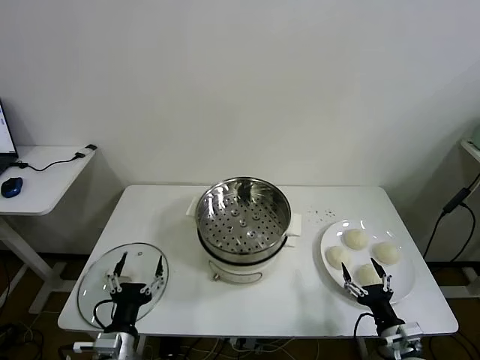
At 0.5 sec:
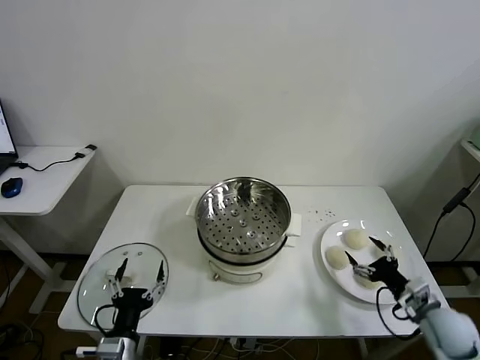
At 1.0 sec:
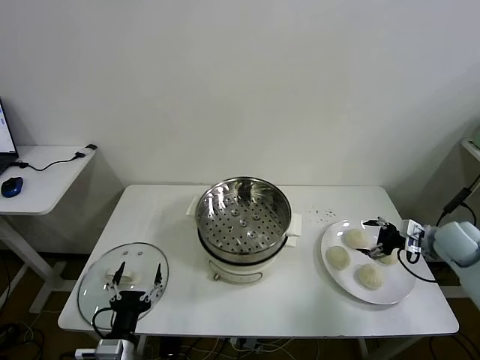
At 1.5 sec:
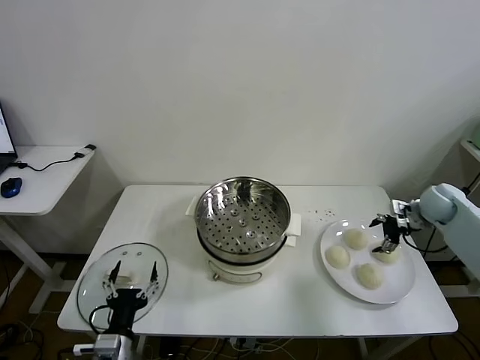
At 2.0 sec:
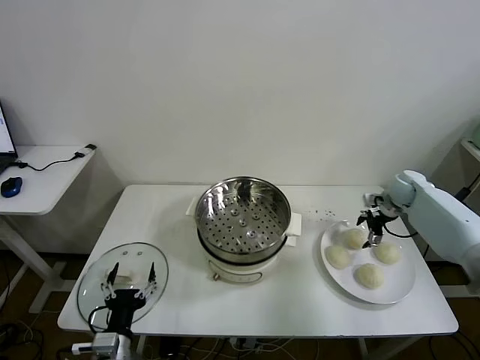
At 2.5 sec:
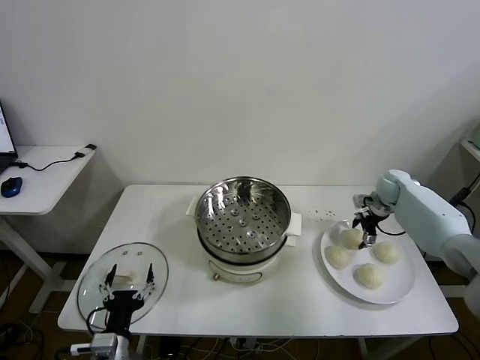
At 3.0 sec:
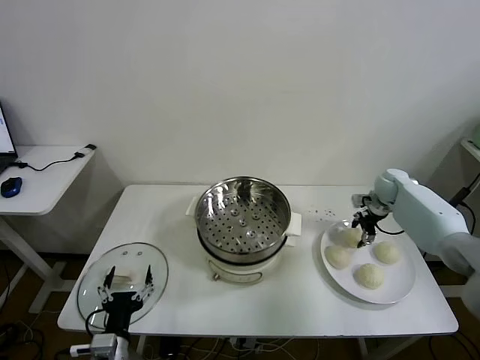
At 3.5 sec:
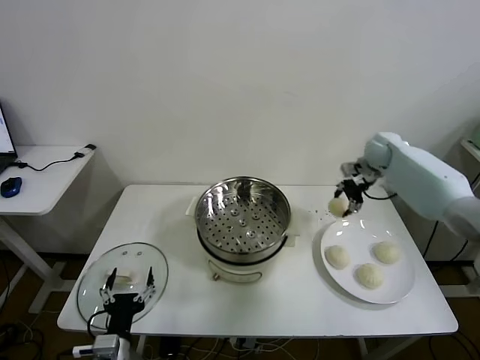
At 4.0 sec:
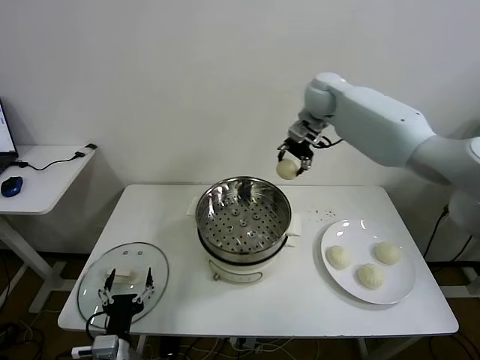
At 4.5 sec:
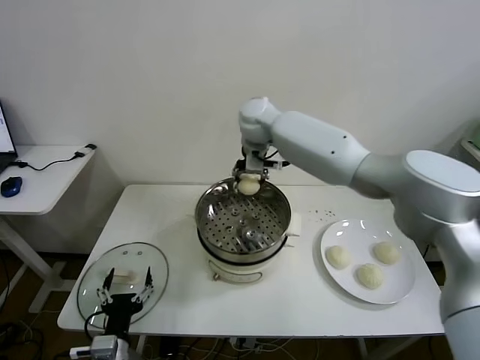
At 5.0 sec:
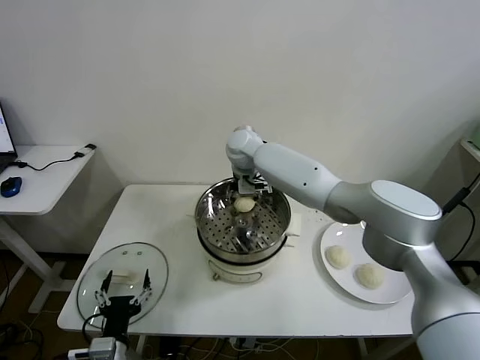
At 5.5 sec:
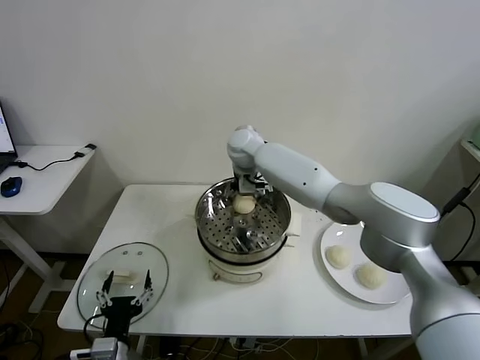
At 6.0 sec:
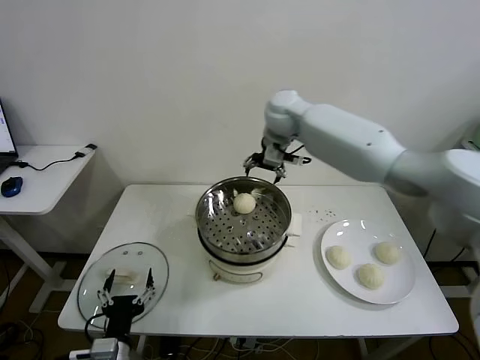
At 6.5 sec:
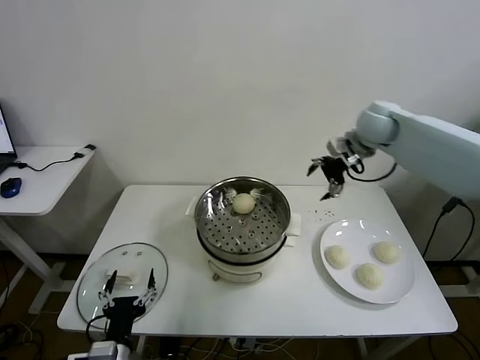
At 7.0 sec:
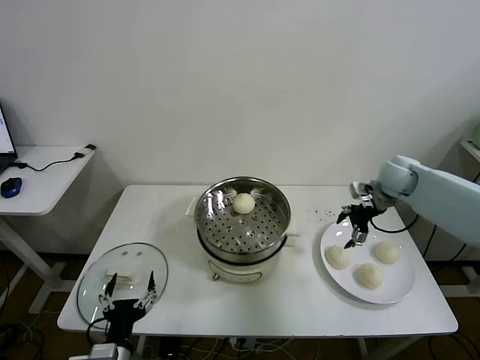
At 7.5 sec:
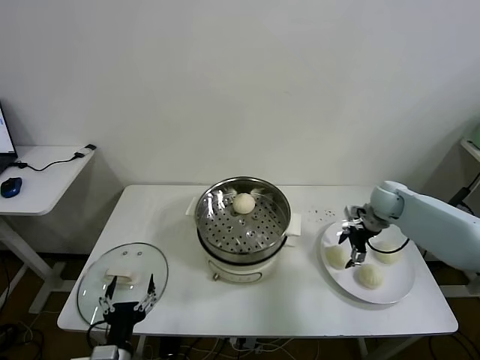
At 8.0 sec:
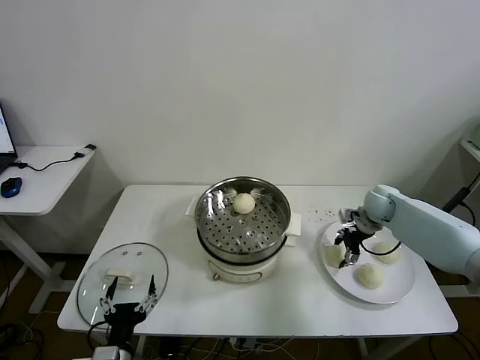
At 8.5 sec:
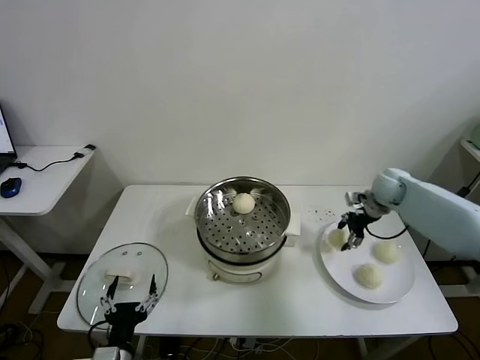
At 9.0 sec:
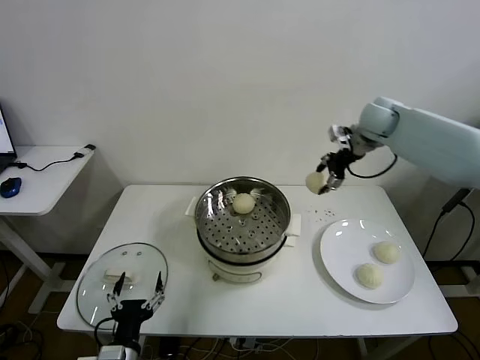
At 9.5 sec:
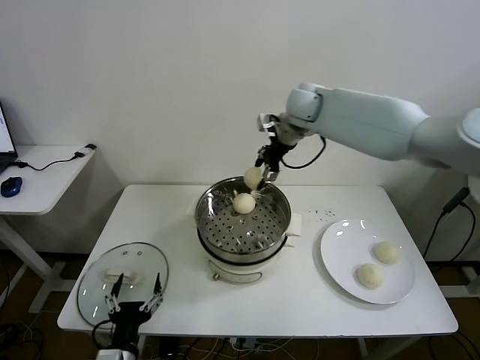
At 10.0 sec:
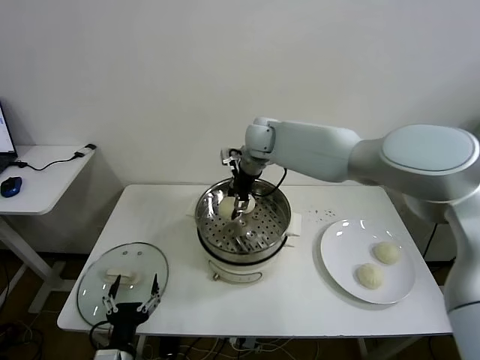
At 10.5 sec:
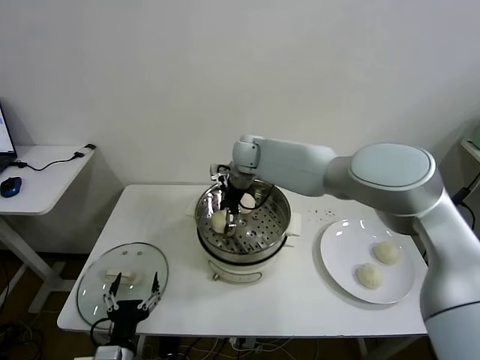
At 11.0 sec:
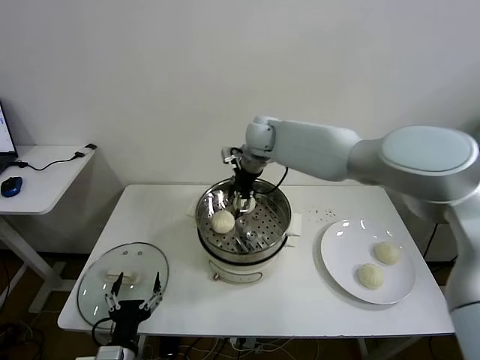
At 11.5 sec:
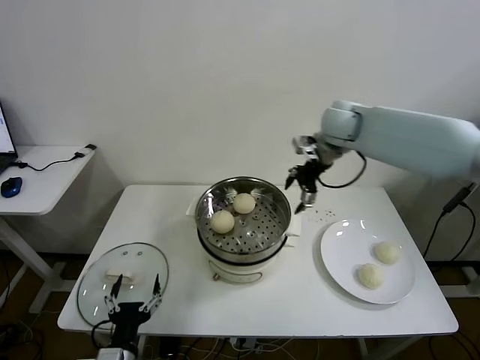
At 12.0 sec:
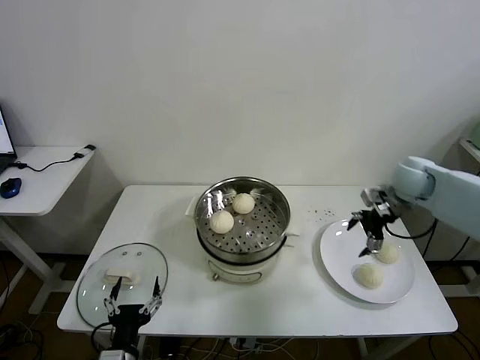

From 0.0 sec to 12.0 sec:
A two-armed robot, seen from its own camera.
Task of the whole recording: take steamed baozi put them in steamer then cover it.
Step, from 0.0 sec to 2.5 sec: Grasp the baozi in the plate with right gripper.
Step, from 3.0 sec to 5.5 sec: Place the baozi on the steamer with right gripper.
Step, from 6.0 sec to 8.0 sec: Grasp the baozi in the plate with right gripper.
Step, from 8.5 sec to 11.0 sec: Place the baozi on the steamer with right gripper.
From 2.0 sec to 4.0 sec: The right gripper travels to the left and upward by approximately 40 cm, and closes.
From 4.0 sec to 6.0 sec: The right gripper moves roughly 15 cm to the left and comes back, and opens.
From 6.0 sec to 8.0 sec: The right gripper moves downward and to the right, some 35 cm, and closes.
From 8.0 sec to 10.0 sec: The right gripper goes roughly 35 cm to the left and upward.
From 10.0 sec to 12.0 sec: The right gripper is displaced to the right by approximately 35 cm, and opens its fingers.

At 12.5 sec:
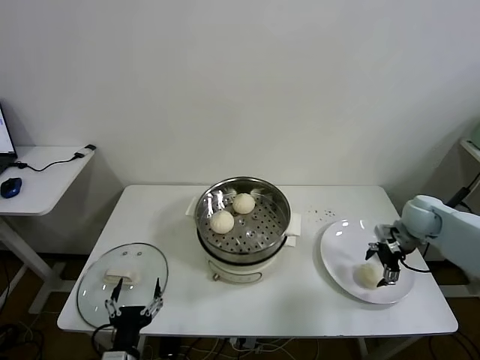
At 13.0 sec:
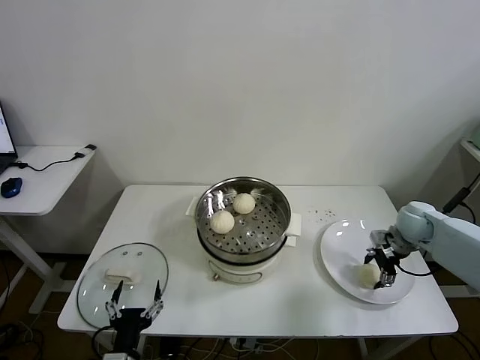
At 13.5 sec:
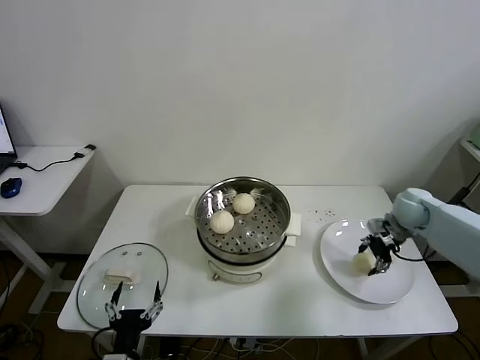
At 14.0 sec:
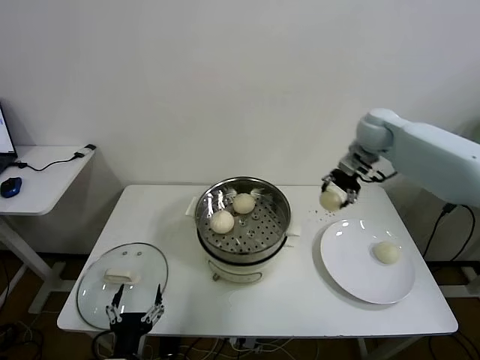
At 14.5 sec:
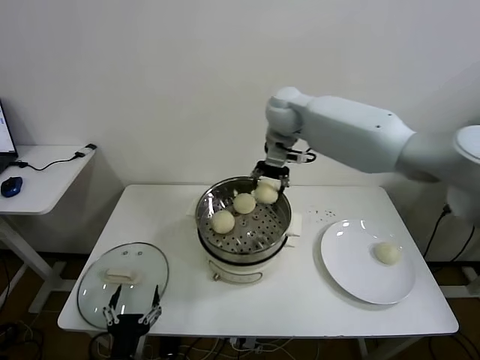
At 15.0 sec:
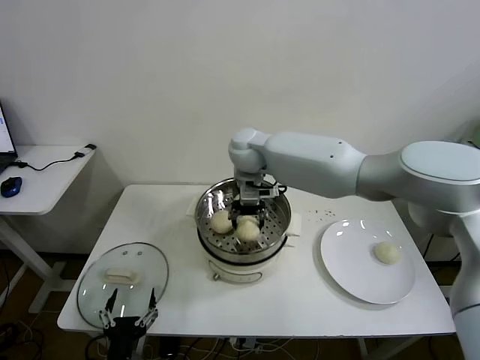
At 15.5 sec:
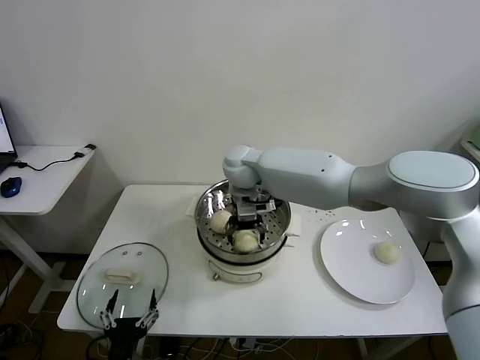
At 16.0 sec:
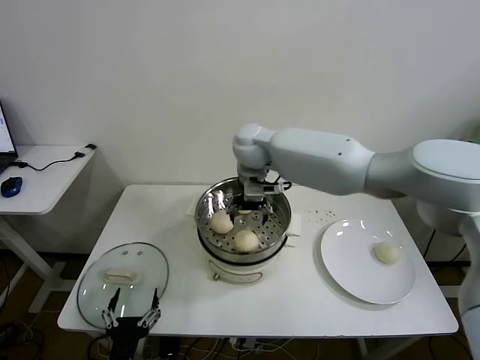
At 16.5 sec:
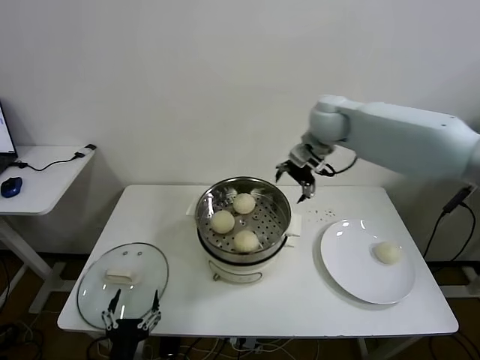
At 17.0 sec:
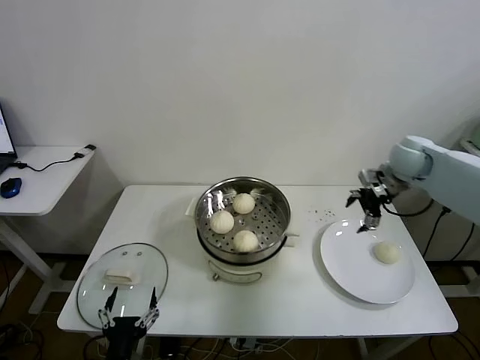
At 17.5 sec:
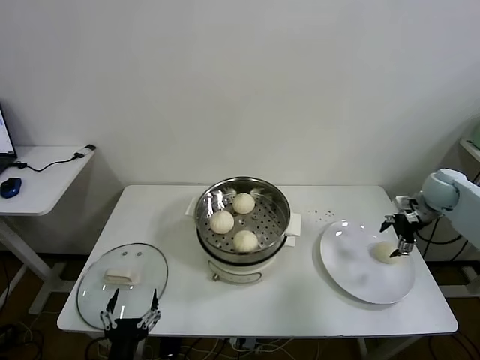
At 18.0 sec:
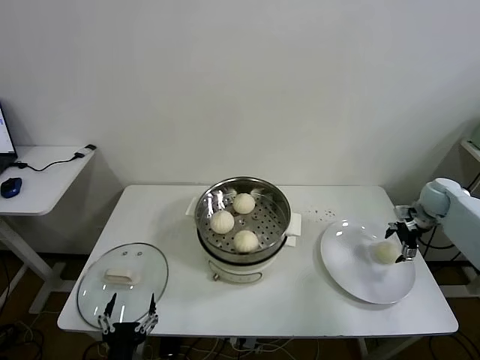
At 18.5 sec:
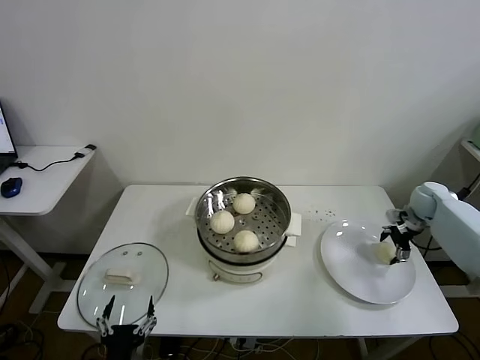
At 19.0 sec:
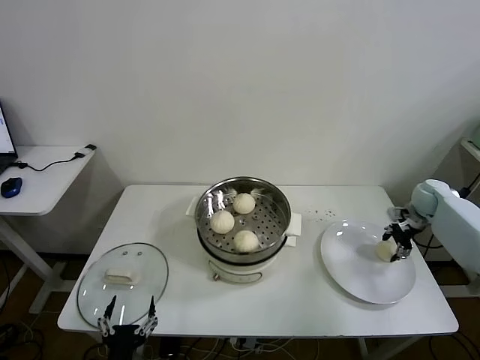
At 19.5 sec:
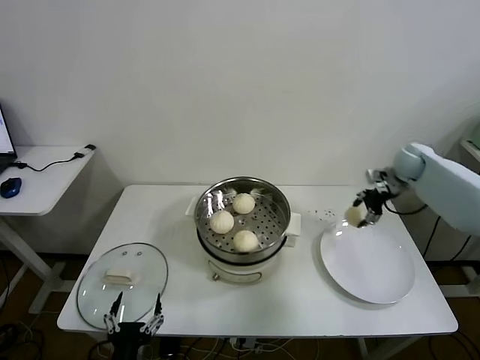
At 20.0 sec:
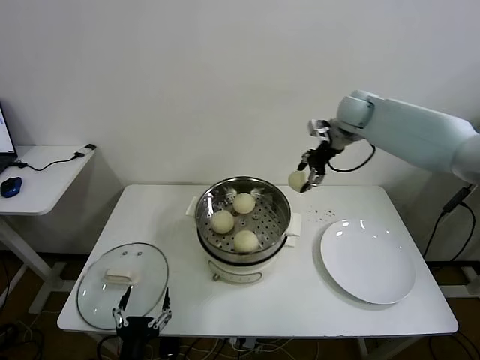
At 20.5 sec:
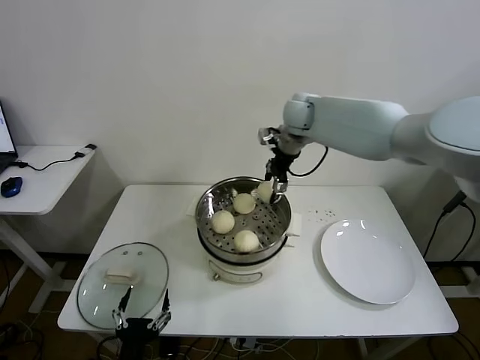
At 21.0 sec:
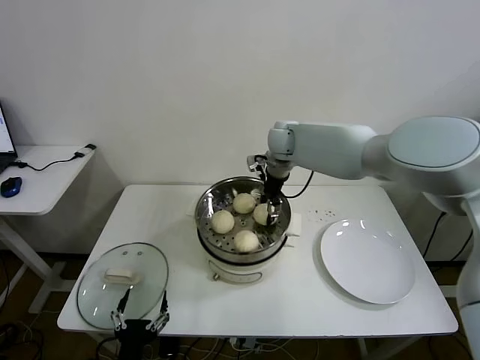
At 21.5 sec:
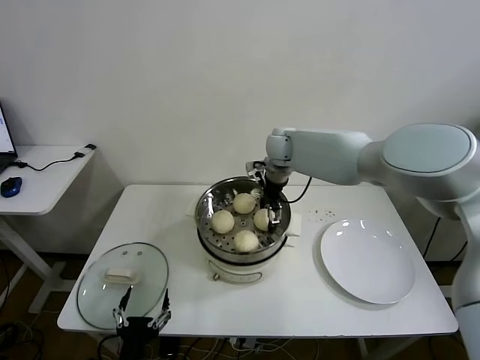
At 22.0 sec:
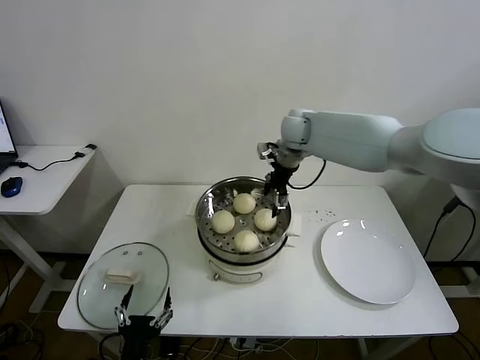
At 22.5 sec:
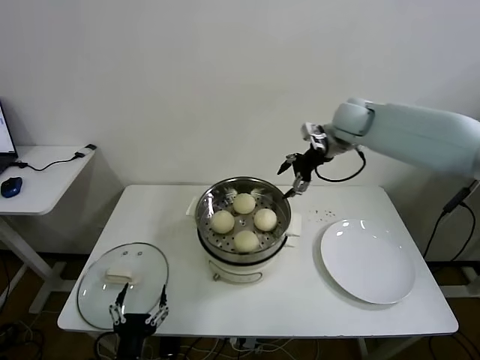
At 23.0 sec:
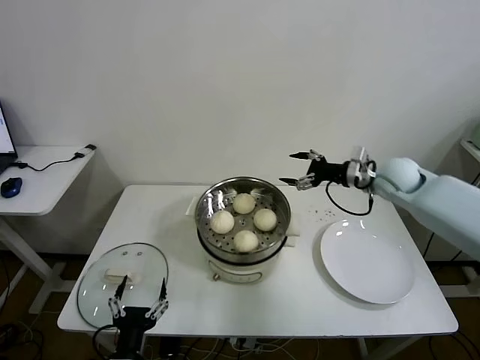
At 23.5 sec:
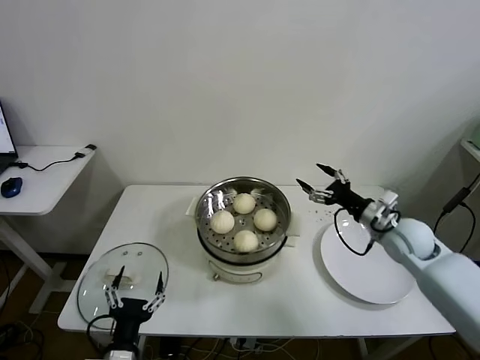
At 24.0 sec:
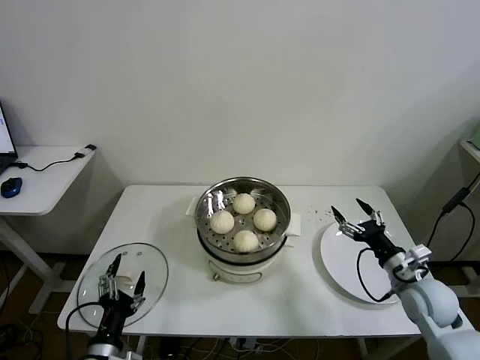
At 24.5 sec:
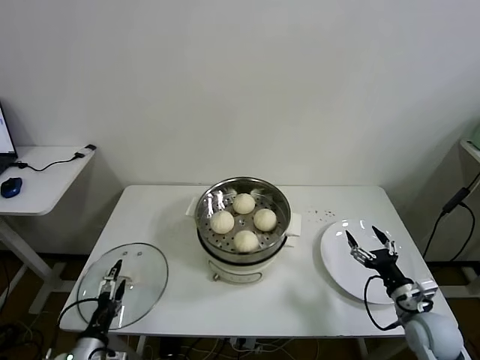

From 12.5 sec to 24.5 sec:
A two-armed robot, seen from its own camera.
Task of the whole recording: take steamed baozi put them in steamer then cover it.
Step, from 13.5 sec to 16.0 sec: Place the baozi on the steamer with right gripper.
Step, from 16.5 sec to 19.0 sec: Grasp the baozi in the plate with right gripper.
Step, from 19.5 sec to 21.5 sec: Place the baozi on the steamer with right gripper.
From 12.5 sec to 14.5 sec: The right gripper shifts some 40 cm to the left and upward, and closes.
From 14.5 sec to 16.5 sec: The right gripper is displaced to the right by roughly 15 cm, and opens up.
From 16.5 sec to 18.5 sec: The right gripper moves to the right and downward, about 40 cm.
From 18.5 sec to 20.5 sec: The right gripper travels to the left and upward by about 40 cm, and closes.
From 20.5 sec to 22.5 sec: The right gripper goes roughly 10 cm to the right, and opens up.
From 22.5 sec to 24.5 sec: The left gripper goes approximately 10 cm to the left and forward. The right gripper is displaced backward, downward and to the right by approximately 50 cm.

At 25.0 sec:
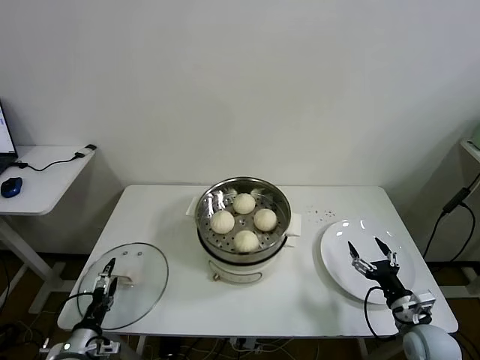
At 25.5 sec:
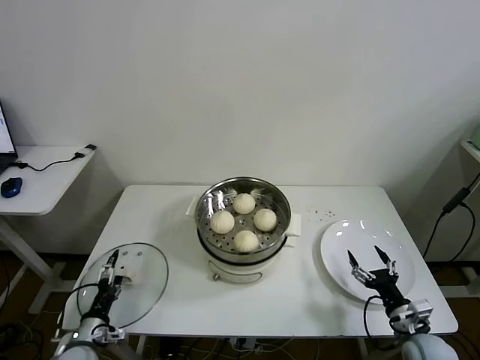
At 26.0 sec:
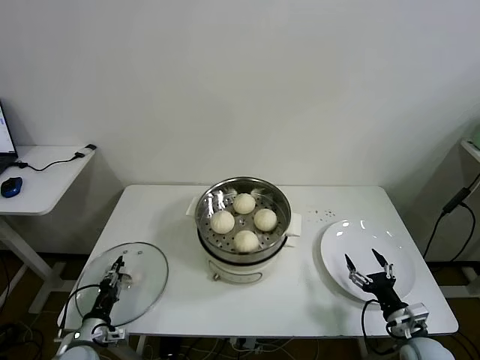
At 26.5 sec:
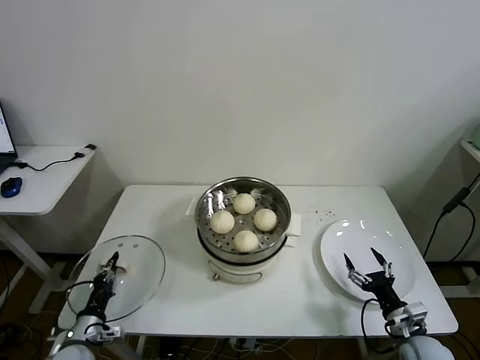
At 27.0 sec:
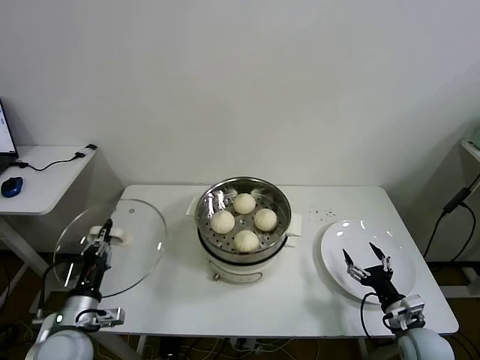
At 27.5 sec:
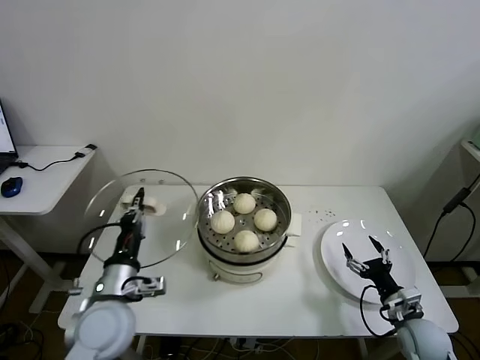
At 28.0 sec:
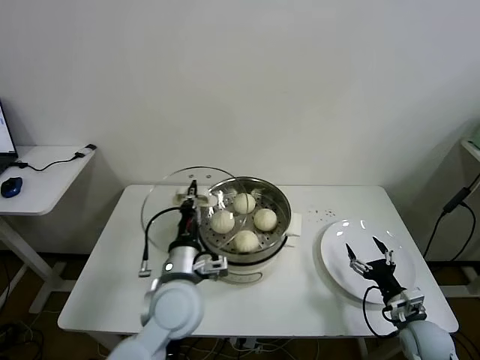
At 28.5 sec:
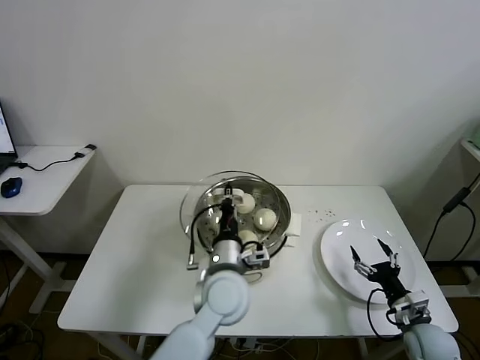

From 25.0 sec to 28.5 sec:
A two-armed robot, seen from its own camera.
Task of the whole recording: take steamed baozi put them in steamer then cover it.
From 25.0 sec to 27.0 sec: The left gripper goes roughly 10 cm upward, and closes up.
From 27.0 sec to 28.5 sec: The left gripper moves to the right, some 30 cm.
